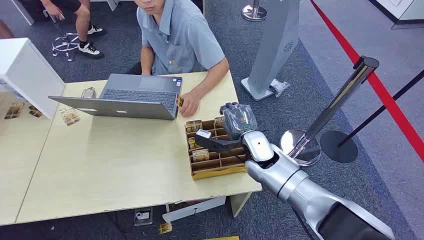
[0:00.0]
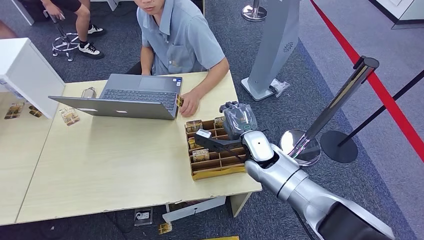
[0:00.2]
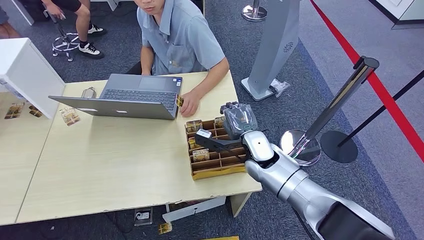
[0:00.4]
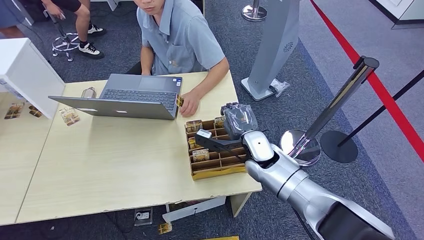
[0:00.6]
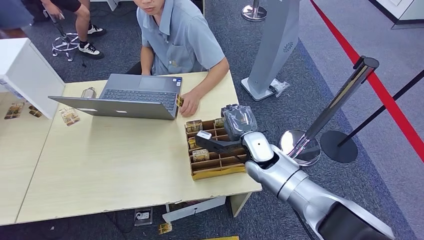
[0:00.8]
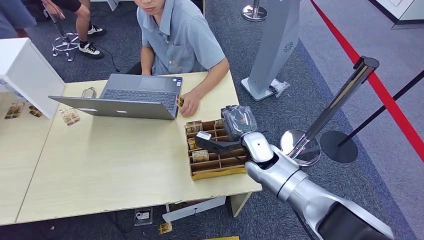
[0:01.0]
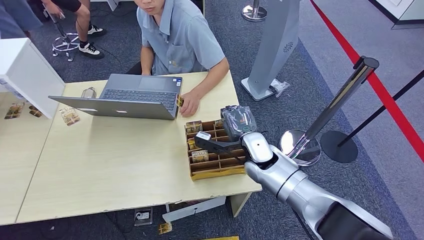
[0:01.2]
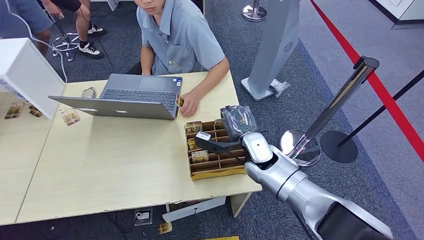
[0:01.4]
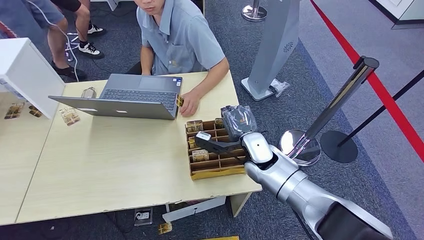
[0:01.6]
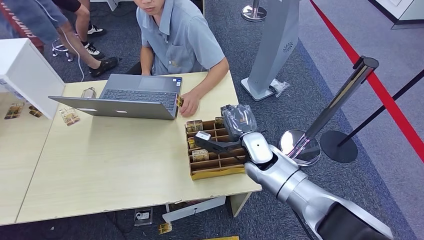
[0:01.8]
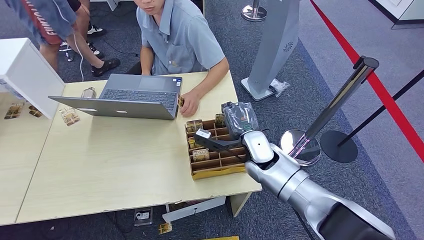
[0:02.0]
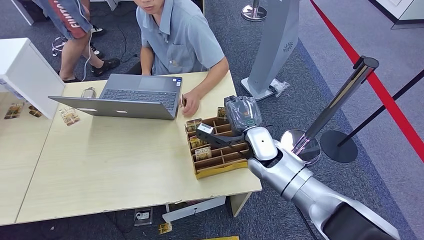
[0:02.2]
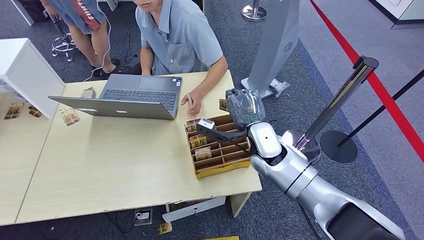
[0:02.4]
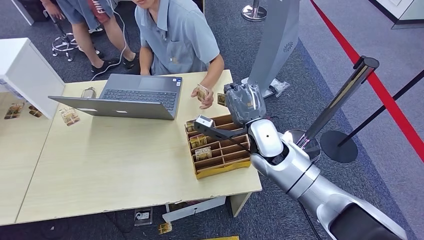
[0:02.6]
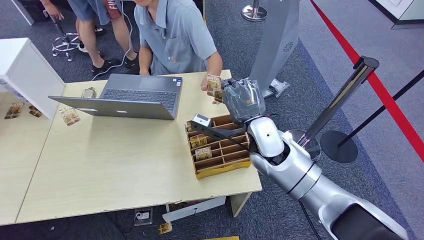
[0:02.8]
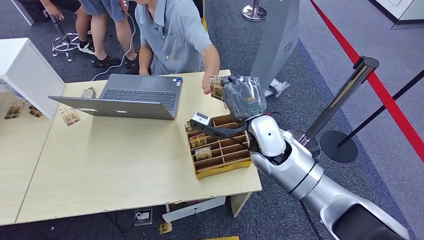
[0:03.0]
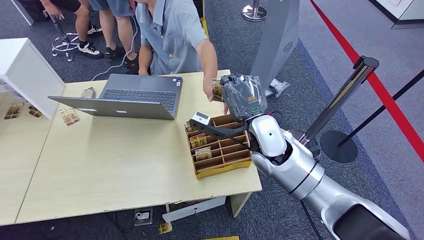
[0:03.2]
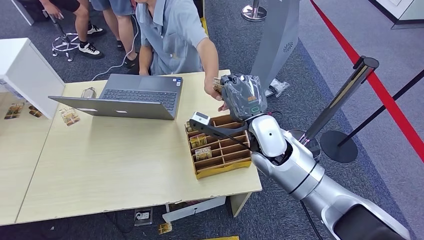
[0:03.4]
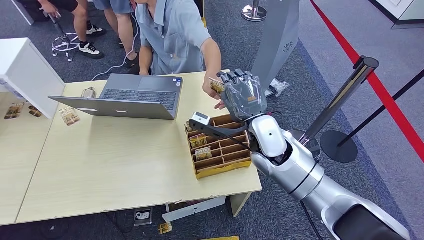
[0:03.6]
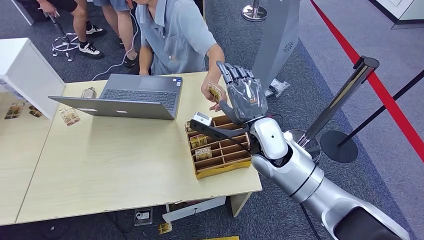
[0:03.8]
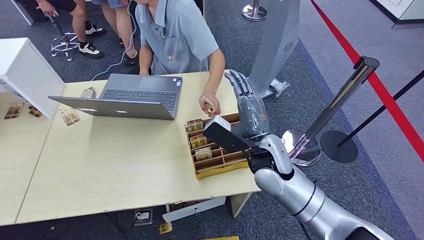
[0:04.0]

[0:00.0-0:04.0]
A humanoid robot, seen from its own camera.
Step, 0:00.0 to 0:02.4: Pick up the room card from the card holder.
Step, 0:03.6 to 0:04.0: Hand the room card to the target.
0:01.4 to 0:02.6: The right hand is displaced upward by approximately 5 cm.
0:02.6 to 0:04.0: The right hand travels backward by some 5 cm.
